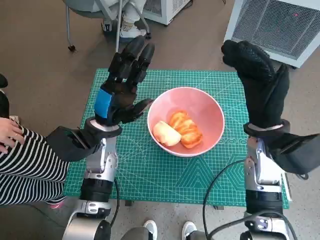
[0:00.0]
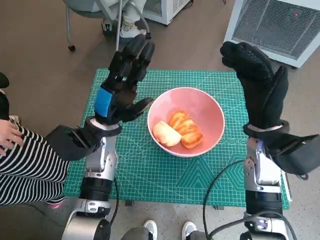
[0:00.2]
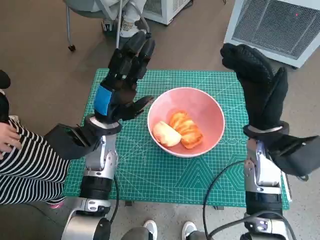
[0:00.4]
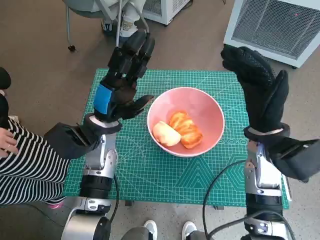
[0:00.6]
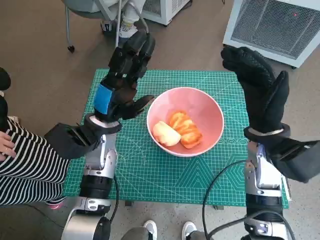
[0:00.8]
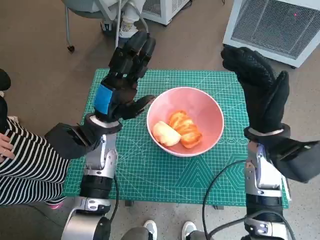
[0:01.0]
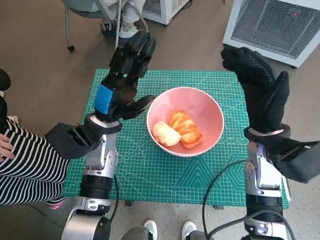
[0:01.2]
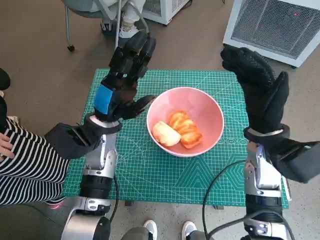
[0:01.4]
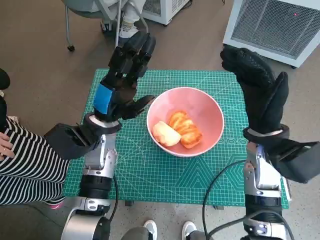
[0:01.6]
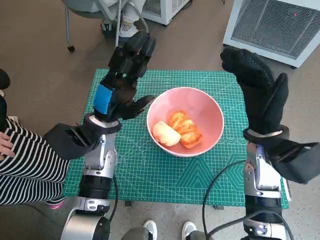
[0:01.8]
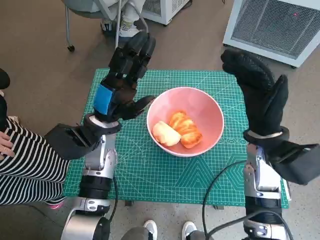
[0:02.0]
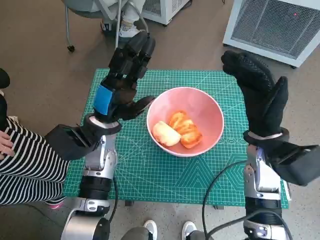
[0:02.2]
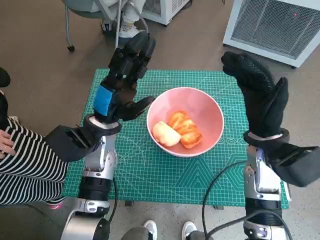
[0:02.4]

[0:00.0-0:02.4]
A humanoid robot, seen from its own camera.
Task of the whole recording: Push the bowl into the center of the table and put the bread into the bowl.
0.0 to 1.2 s: Neither hand changes place.
1.2 to 2.4 s: The two hands keep their place.

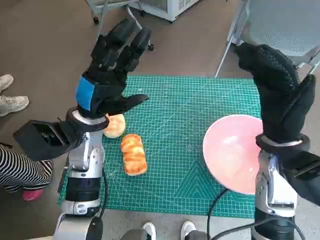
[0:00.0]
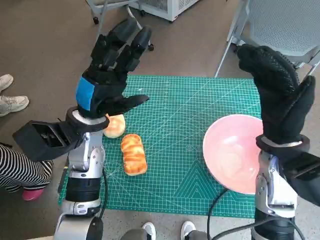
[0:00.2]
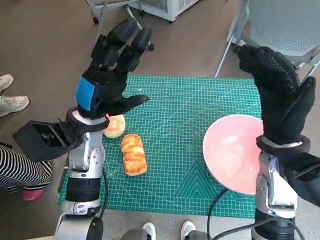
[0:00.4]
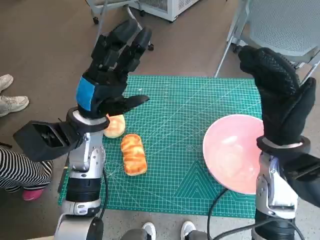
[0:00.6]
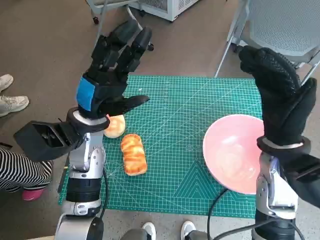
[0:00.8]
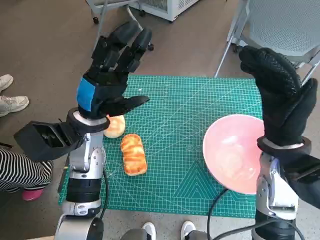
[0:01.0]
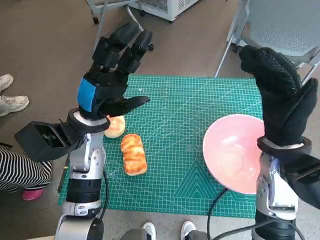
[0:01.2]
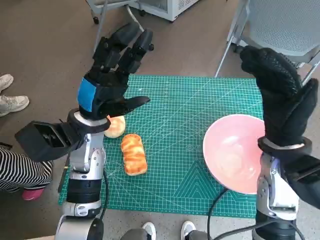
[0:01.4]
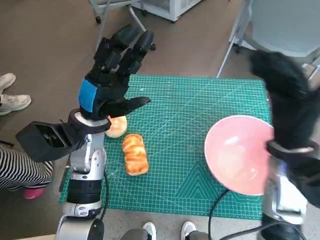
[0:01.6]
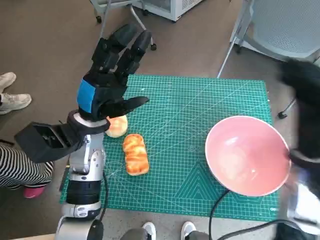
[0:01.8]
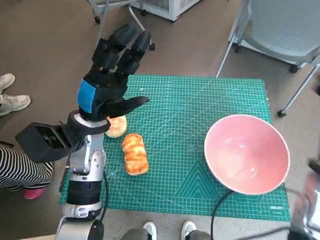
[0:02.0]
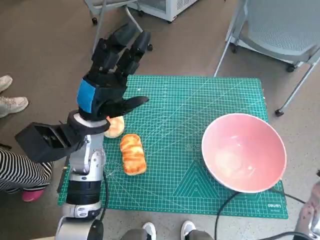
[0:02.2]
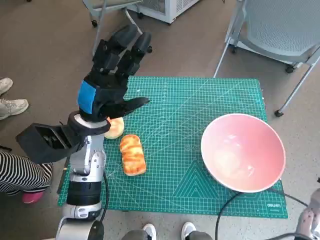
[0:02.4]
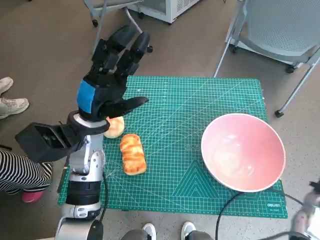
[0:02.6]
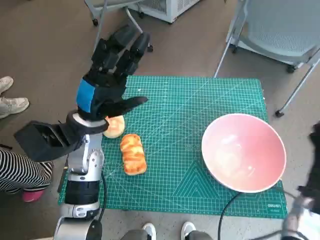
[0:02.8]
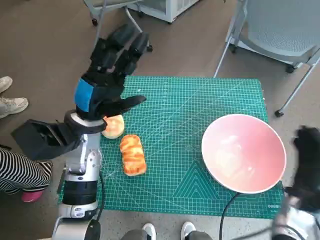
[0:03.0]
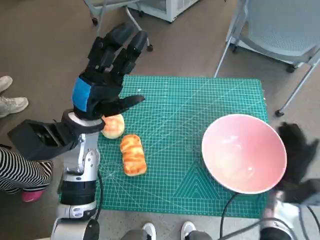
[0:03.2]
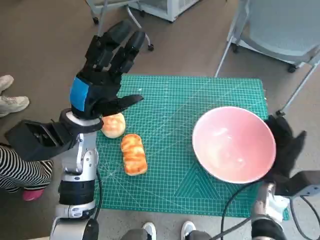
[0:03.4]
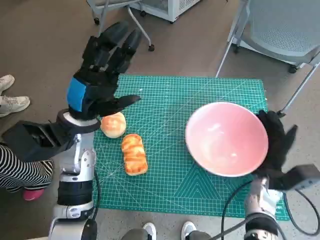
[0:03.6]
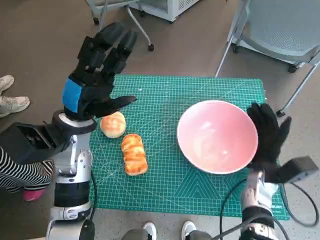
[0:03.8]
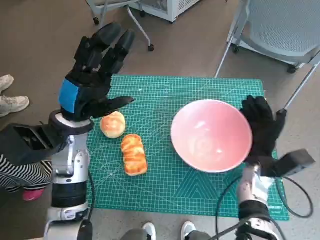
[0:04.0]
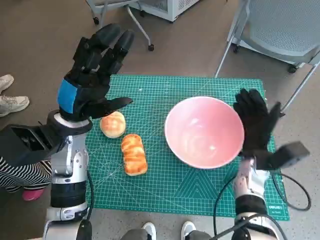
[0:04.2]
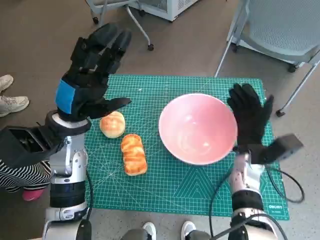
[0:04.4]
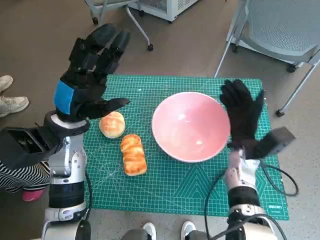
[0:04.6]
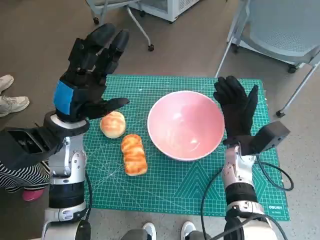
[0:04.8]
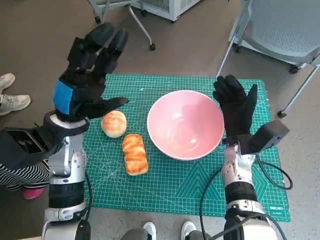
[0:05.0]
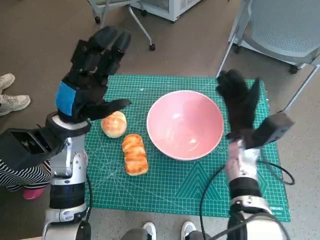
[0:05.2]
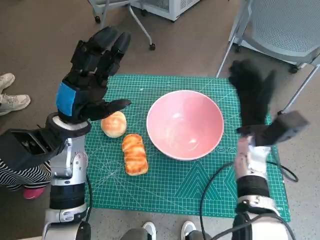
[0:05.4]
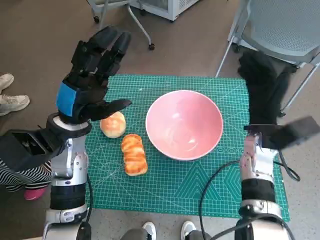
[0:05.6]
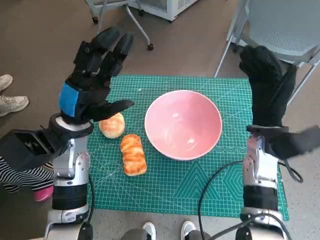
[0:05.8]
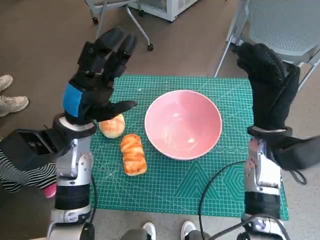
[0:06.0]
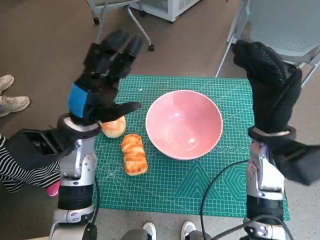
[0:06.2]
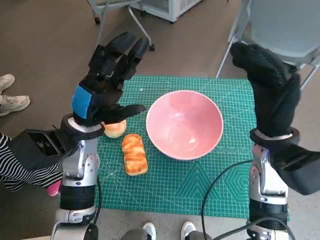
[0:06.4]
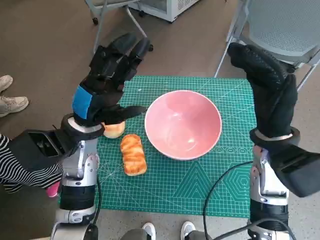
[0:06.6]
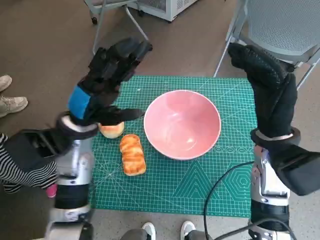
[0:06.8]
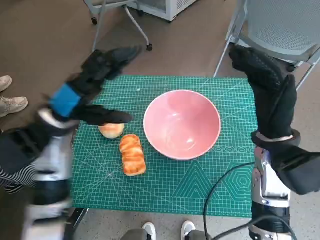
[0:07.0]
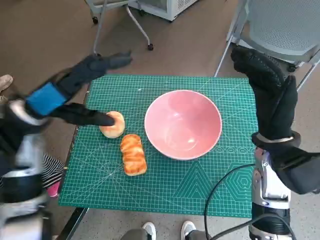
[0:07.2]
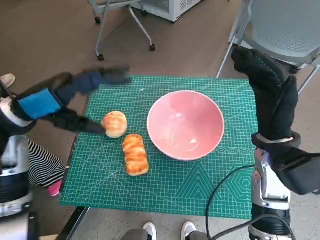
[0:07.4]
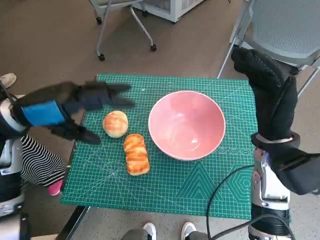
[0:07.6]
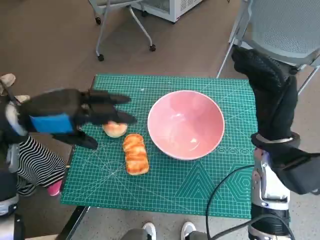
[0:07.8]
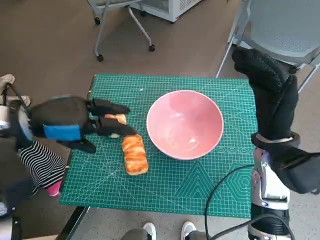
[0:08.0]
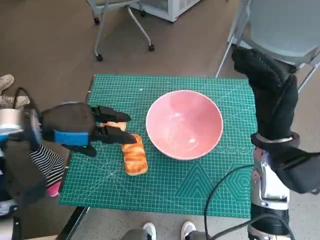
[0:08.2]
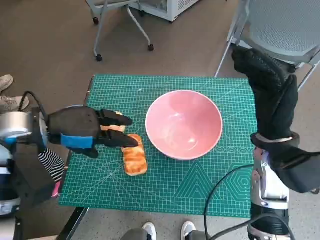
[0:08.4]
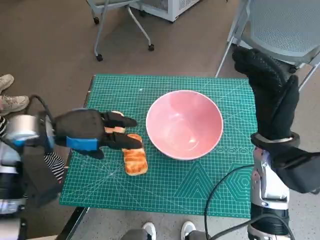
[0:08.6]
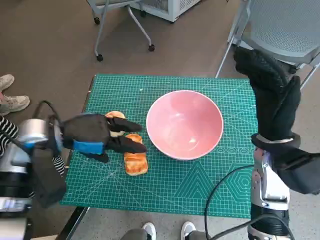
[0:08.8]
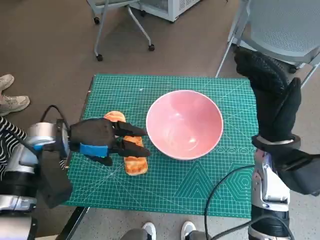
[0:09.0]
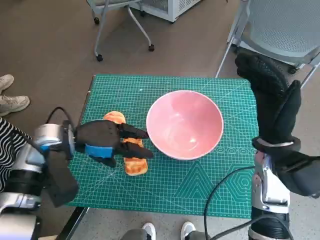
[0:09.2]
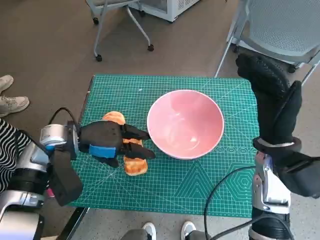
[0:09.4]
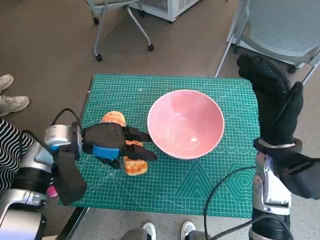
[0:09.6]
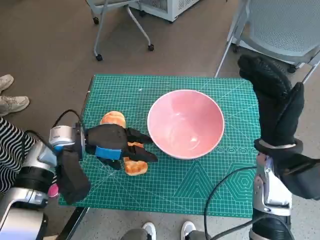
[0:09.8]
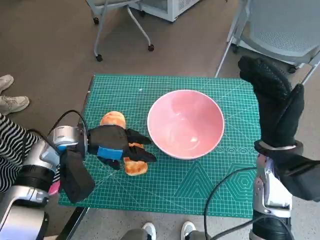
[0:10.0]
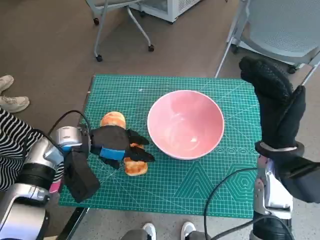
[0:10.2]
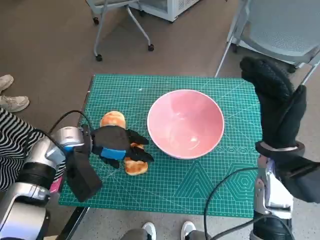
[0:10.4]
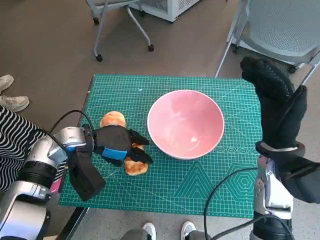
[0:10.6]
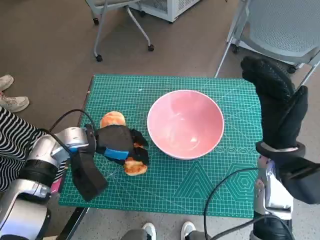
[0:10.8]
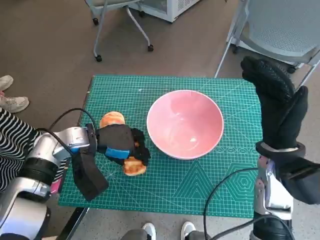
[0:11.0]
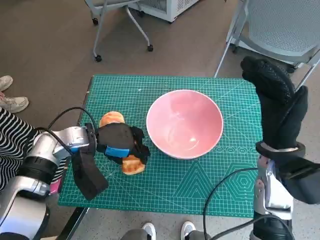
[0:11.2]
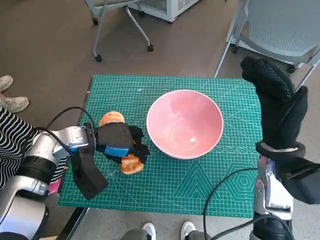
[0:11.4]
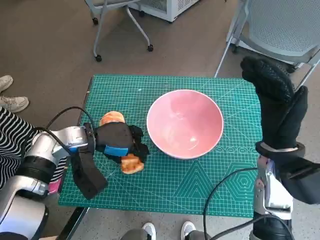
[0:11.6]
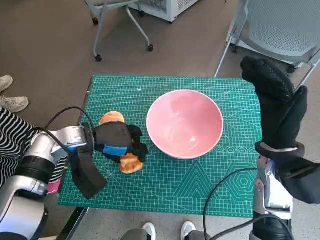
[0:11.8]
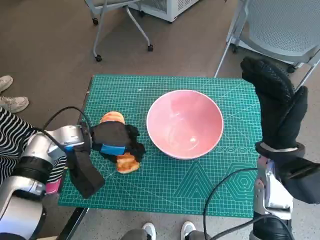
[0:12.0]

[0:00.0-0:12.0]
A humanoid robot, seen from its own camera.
Task of the whole recording: Push the bowl into the center of the table and put the bread into the bowl.
Step, 0.0 to 5.2 s: Move the pink bowl to the center of table with right hand.
Step, 5.4 to 11.6 s: Grasp the long bread with left hand.
1.6 to 3.0 s: The right hand moves downward and to the right, roughly 20 cm.
3.0 to 4.4 s: The right hand shifts roughly 15 cm to the left and forward.
4.4 to 6.0 s: The right hand travels upward by about 10 cm.
6.0 to 7.6 s: The left hand goes about 10 cm upward and to the left.
7.6 to 9.0 s: The left hand is displaced downward by some 10 cm.
9.0 to 10.4 s: The left hand ends up approximately 5 cm from where it was.
10.4 to 12.0 s: The hands stay close to where they were, moving slightly.

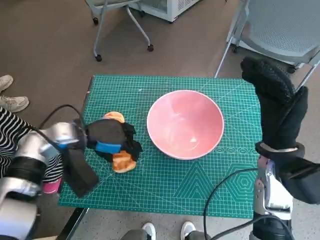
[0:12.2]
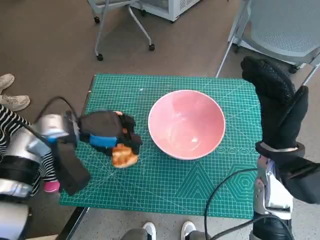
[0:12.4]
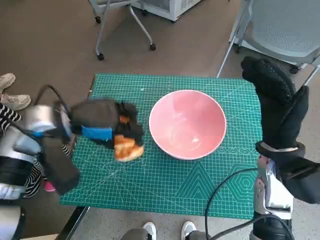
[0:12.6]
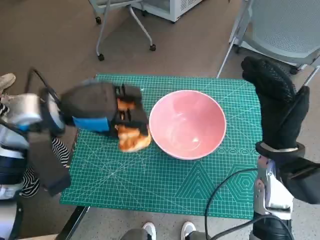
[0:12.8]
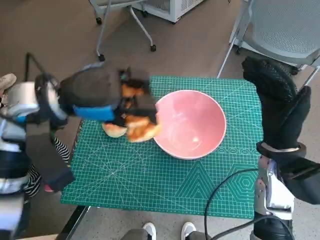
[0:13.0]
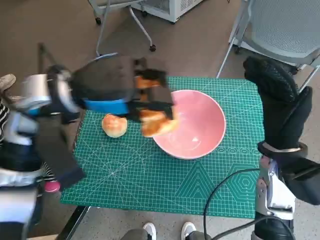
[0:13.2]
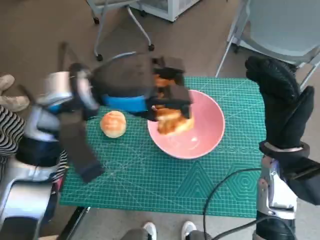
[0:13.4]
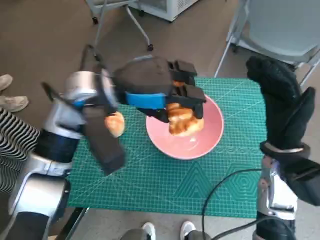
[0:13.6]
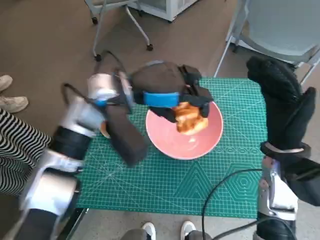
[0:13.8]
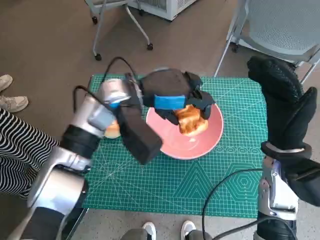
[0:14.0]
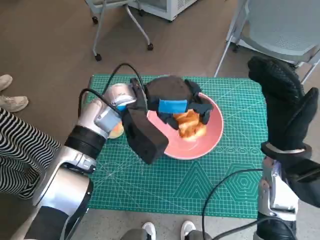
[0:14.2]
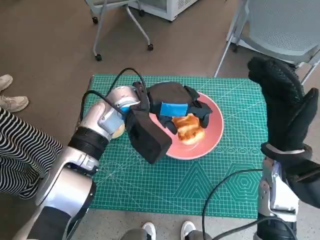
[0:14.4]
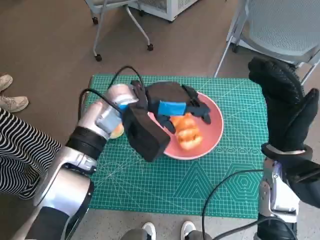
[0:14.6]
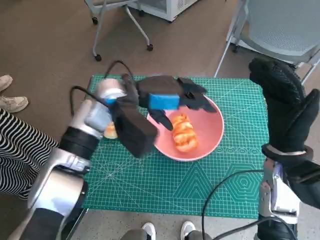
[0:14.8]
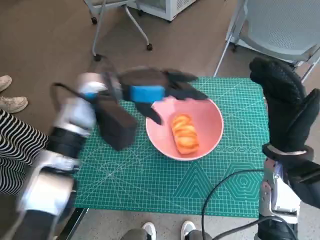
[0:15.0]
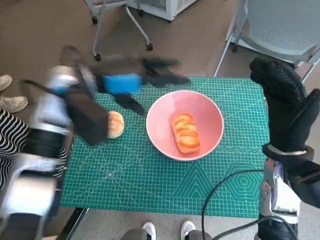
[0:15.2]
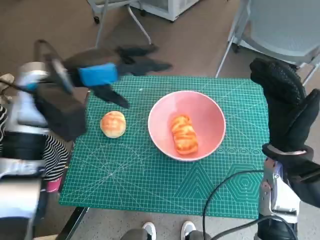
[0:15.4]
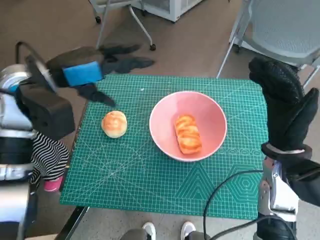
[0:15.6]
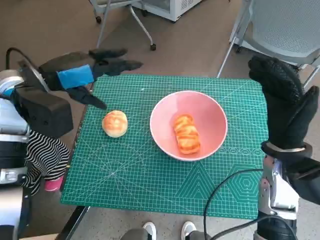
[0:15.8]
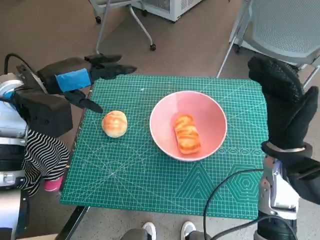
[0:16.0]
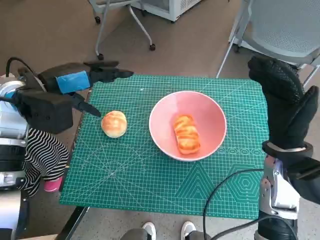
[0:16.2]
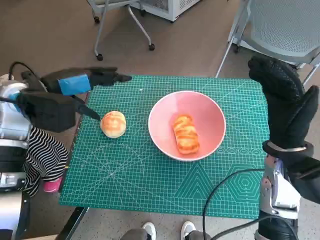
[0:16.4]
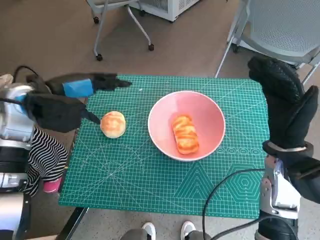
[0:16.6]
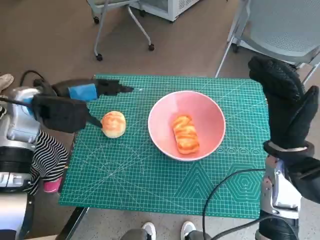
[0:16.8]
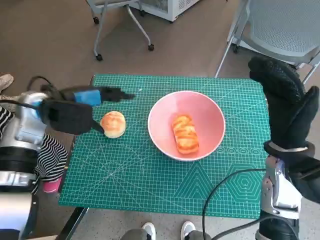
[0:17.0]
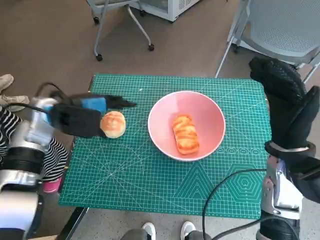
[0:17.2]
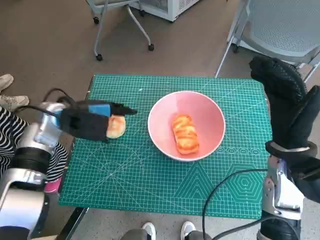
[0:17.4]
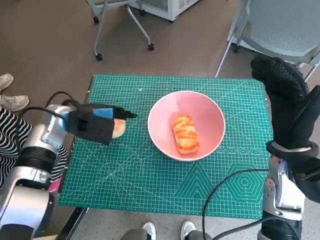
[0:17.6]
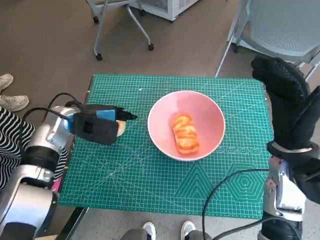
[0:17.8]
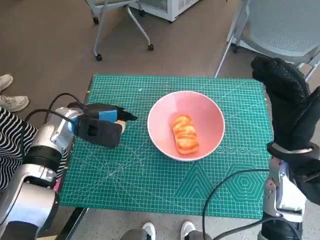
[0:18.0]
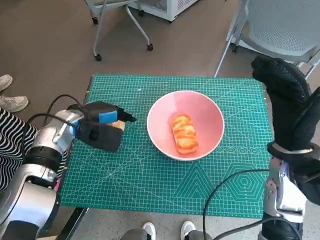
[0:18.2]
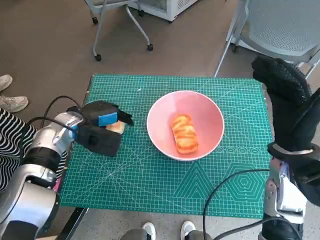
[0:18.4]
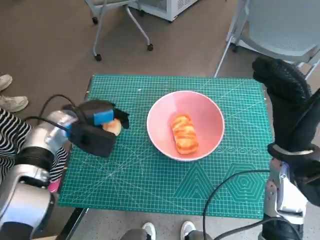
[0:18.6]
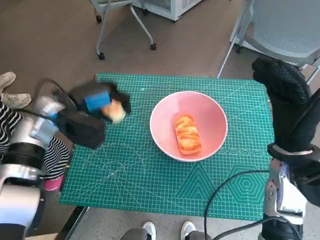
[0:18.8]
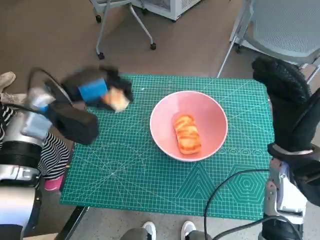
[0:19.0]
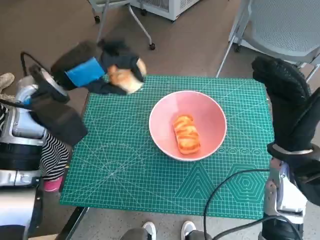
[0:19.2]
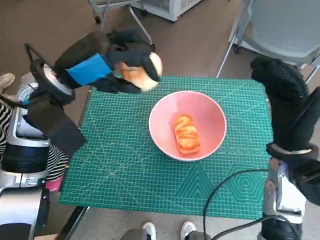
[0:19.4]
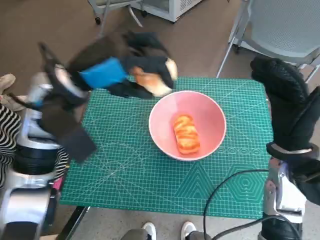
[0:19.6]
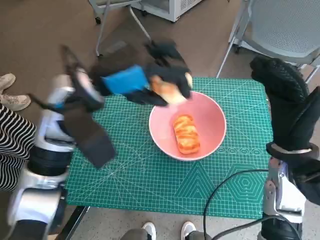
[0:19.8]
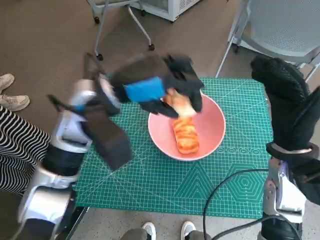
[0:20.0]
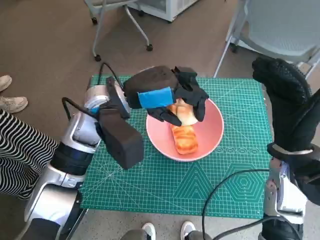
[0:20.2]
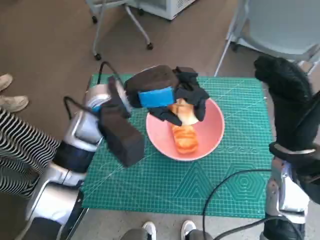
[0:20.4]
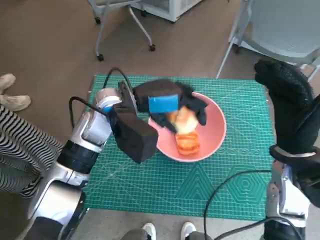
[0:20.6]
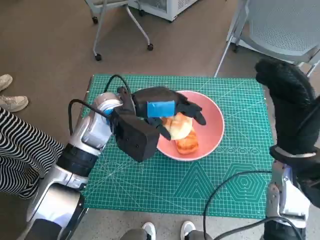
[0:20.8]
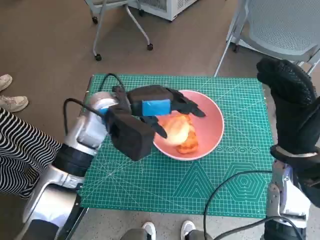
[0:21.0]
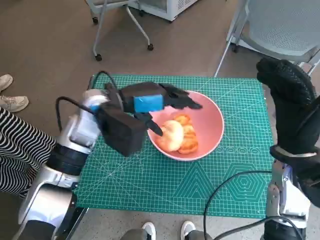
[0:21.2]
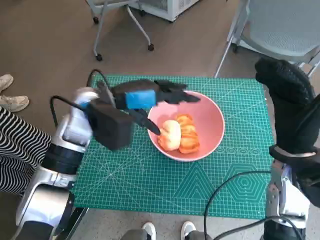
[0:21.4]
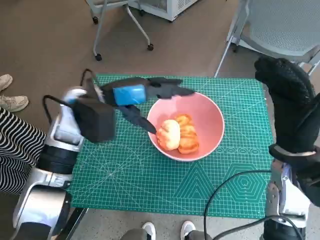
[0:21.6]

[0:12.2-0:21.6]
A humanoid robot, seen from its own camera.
Task of the whole recording: Push the bowl into the center of the table and put the bread into the bowl.
Step, 12.2 to 14.6 s: Place the long bread in pink bowl with left hand.
Step, 14.8 to 18.4 s: Grasp the round bread with left hand.
Step, 18.6 to 21.2 s: Place the round bread in pink bowl with left hand.
12.2 to 13.8 s: The left hand moves upward and to the right, about 15 cm.
13.8 to 15.4 s: The left hand moves to the left, approximately 10 cm.
15.4 to 17.0 s: The left hand shifts about 10 cm downward and to the left.
17.0 to 18.4 s: The left hand is displaced downward by approximately 10 cm.
18.4 to 20.0 s: The left hand heads upward and to the right, covering roughly 15 cm.
20.0 to 21.6 s: The left hand moves roughly 5 cm.
